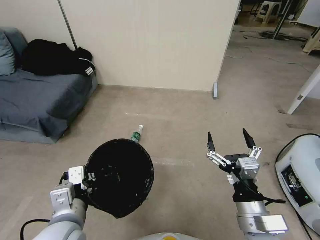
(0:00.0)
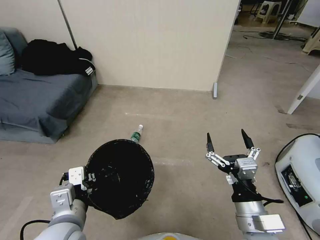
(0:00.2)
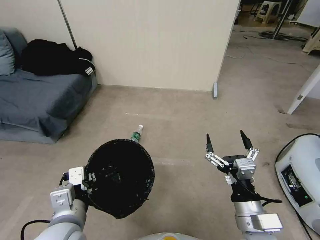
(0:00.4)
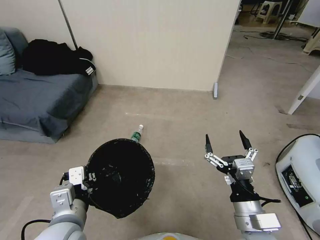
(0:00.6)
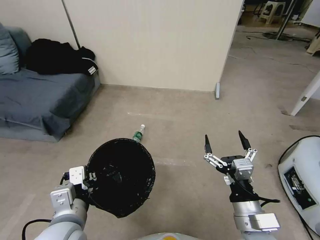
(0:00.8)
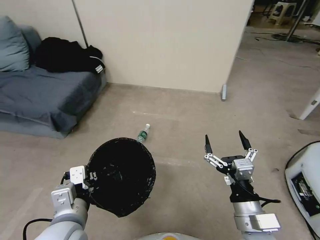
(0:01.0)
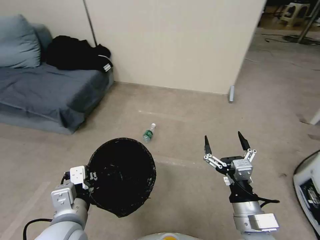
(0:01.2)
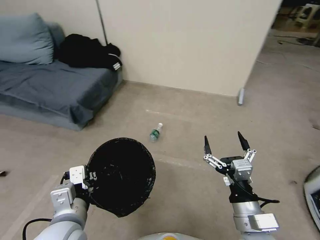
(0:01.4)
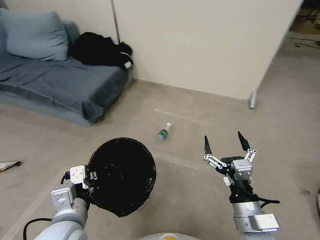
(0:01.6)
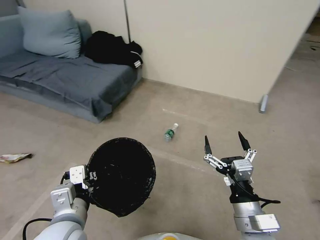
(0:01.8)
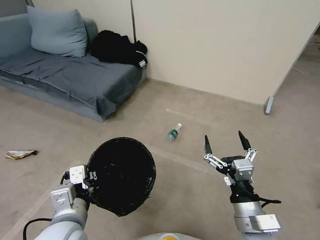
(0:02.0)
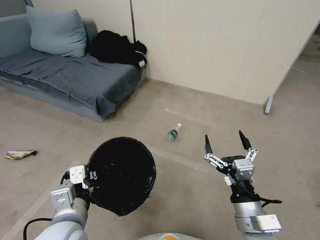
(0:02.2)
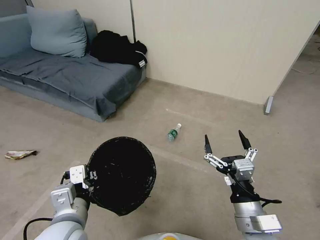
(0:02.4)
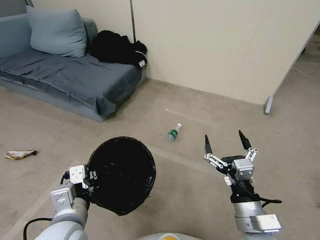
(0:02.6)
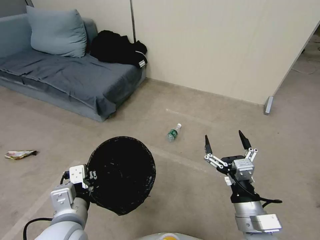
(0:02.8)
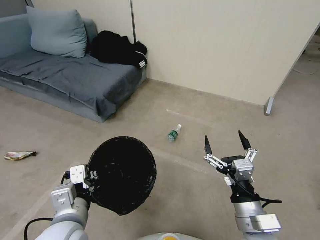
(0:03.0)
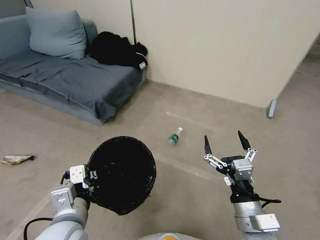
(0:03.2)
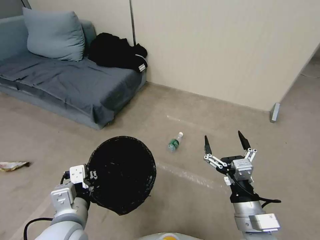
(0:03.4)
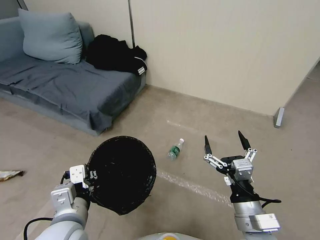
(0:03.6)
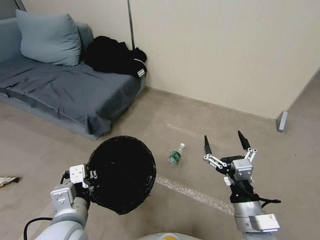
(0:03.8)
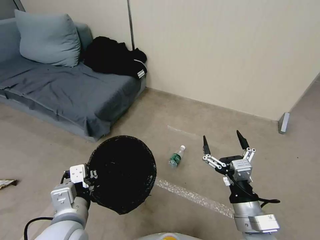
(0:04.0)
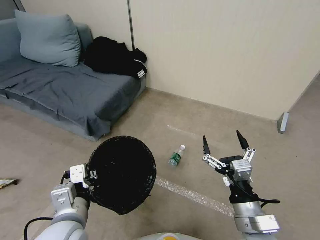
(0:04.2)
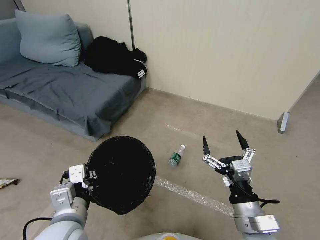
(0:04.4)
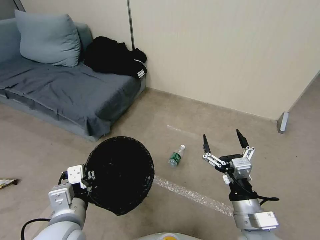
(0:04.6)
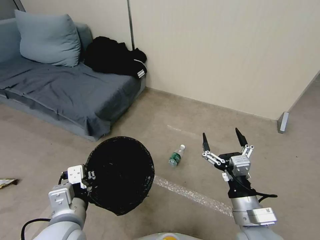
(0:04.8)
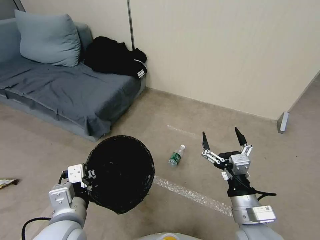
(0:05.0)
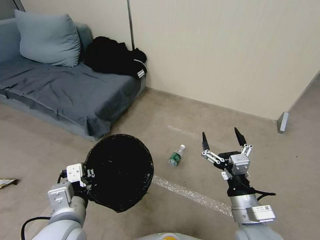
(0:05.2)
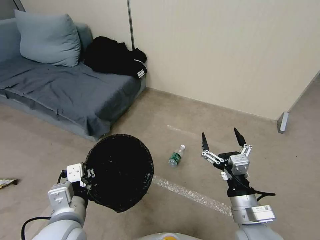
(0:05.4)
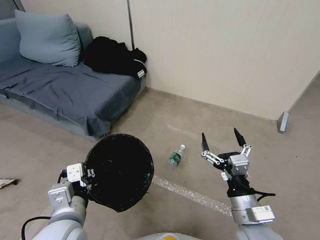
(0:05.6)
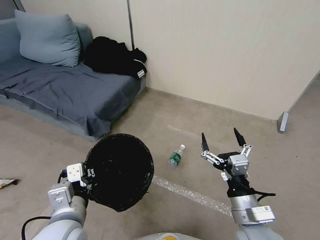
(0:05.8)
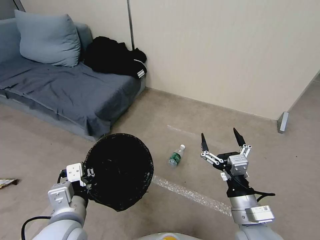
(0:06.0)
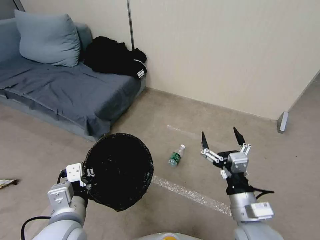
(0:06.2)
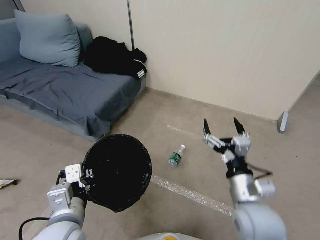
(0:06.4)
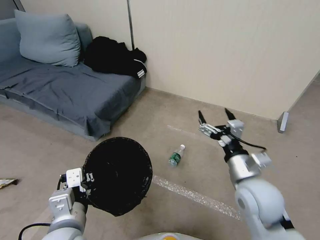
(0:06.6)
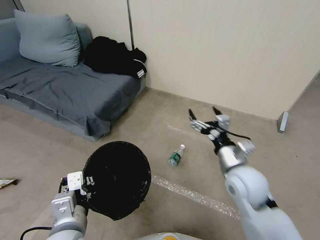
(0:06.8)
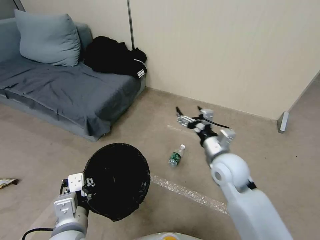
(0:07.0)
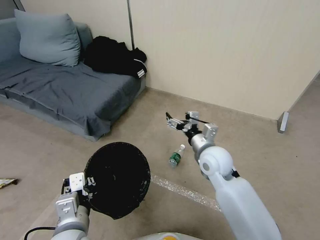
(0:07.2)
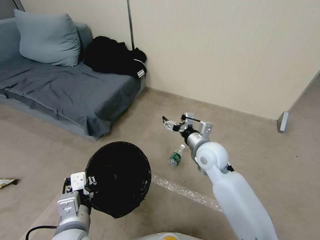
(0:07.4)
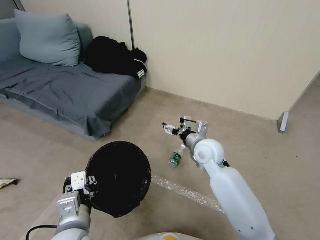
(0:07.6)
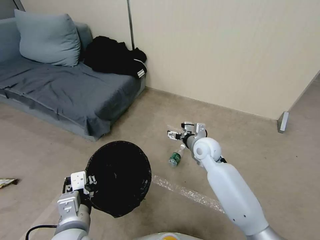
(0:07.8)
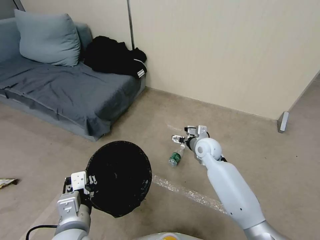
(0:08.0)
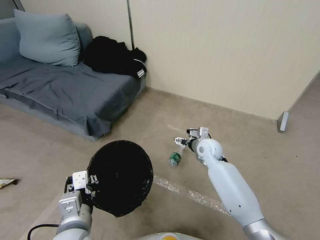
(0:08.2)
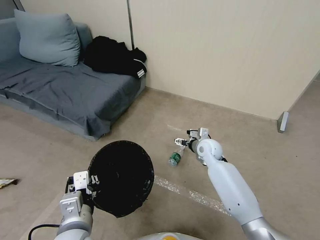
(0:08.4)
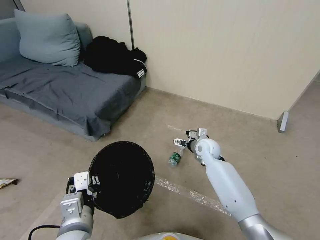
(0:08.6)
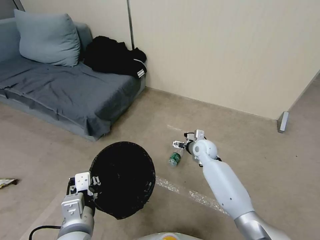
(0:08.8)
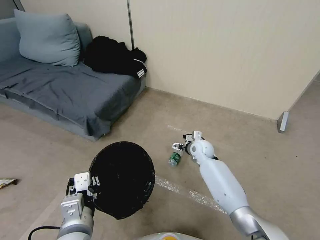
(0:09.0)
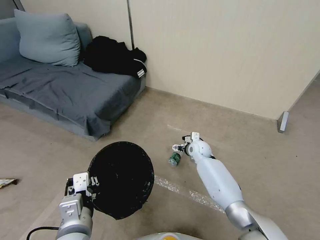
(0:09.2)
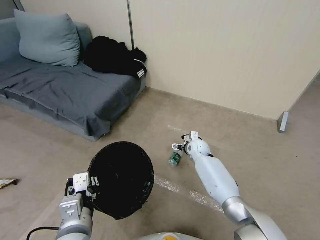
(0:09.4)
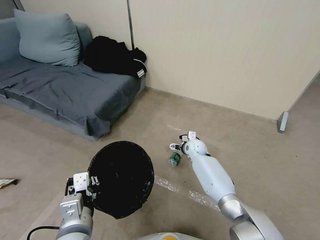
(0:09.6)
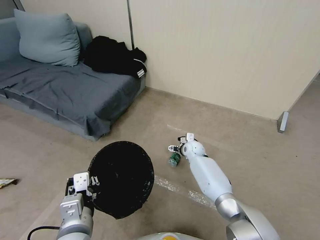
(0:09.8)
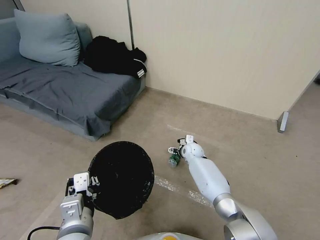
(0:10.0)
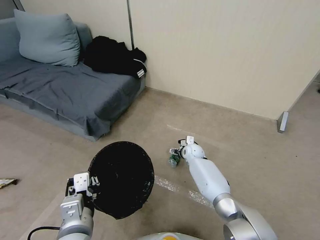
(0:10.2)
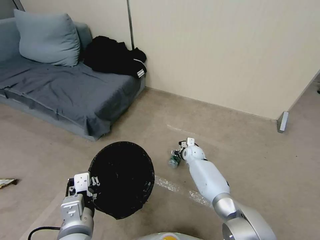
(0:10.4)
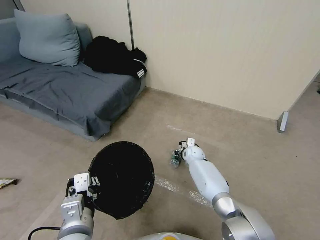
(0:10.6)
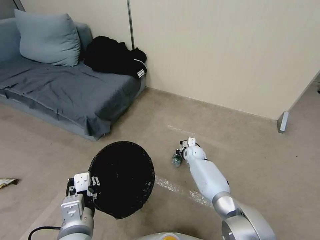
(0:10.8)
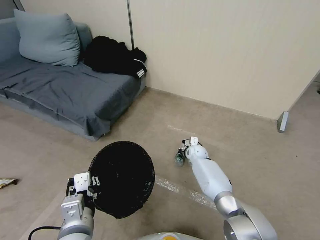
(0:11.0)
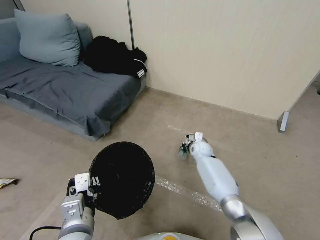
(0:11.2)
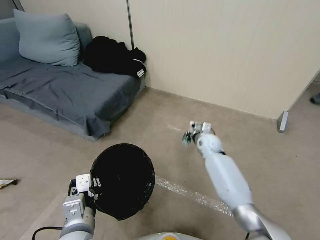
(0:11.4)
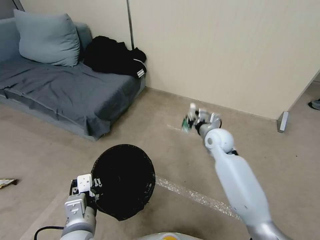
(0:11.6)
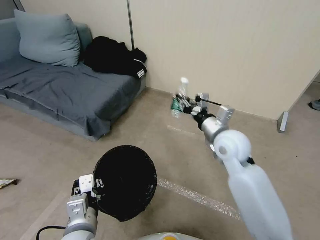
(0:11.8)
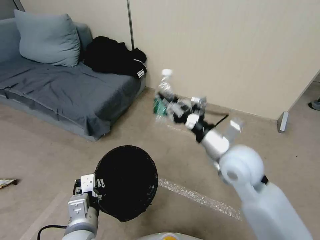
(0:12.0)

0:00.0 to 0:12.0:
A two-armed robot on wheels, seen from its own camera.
Task of the whole recording: Pick up the trash bin, then pick up the garbage from the floor and place it into the trash bin.
0:01.6 to 0:04.4: Both grippers stay about where they are.
0:04.4 to 0:06.0: The grippers stay close to where they were, moving slightly.
0:06.0 to 0:07.6: The right gripper shifts about 25 cm forward.
0:07.6 to 0:09.0: The right gripper travels downward and forward by about 15 cm.
0:09.0 to 0:10.4: The right gripper is displaced downward by roughly 10 cm.
0:10.4 to 0:12.0: The right gripper moves upward and backward, some 35 cm, and closes.

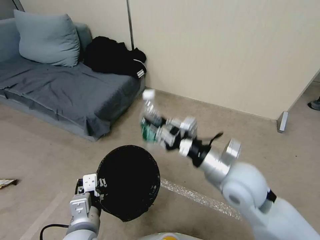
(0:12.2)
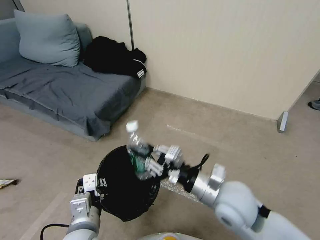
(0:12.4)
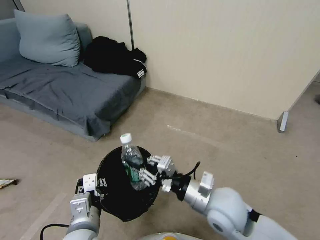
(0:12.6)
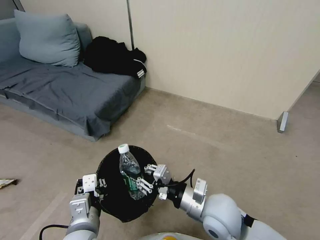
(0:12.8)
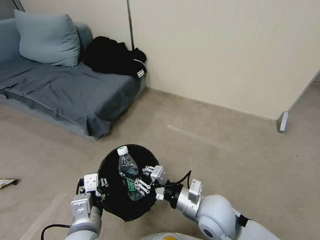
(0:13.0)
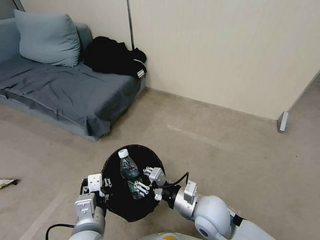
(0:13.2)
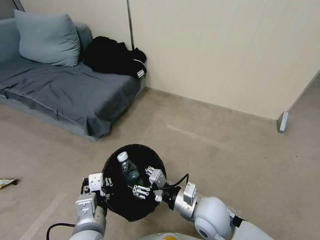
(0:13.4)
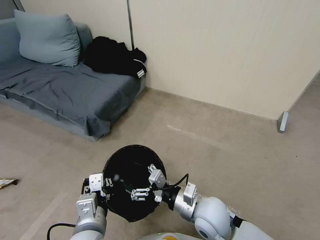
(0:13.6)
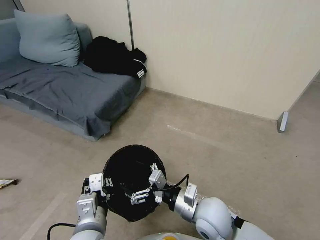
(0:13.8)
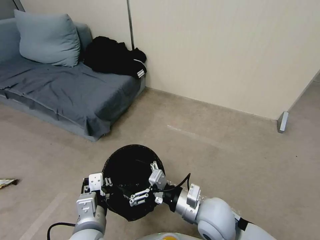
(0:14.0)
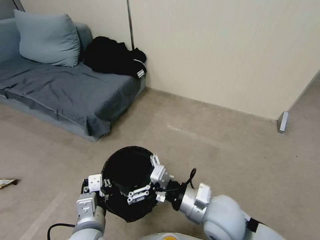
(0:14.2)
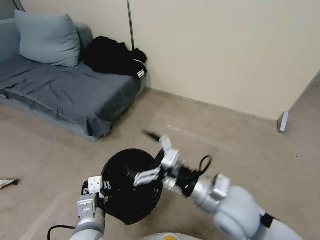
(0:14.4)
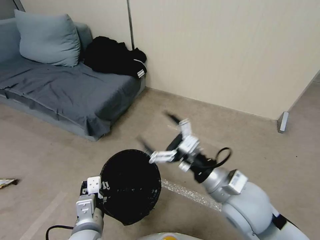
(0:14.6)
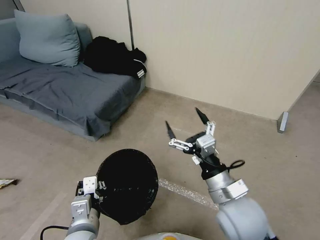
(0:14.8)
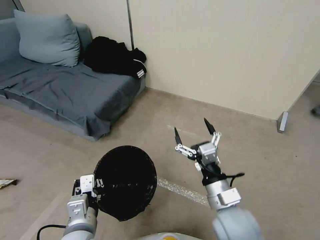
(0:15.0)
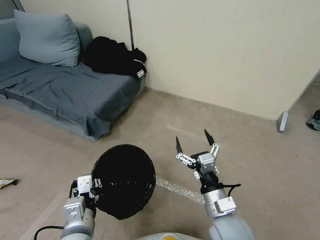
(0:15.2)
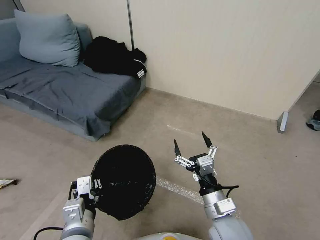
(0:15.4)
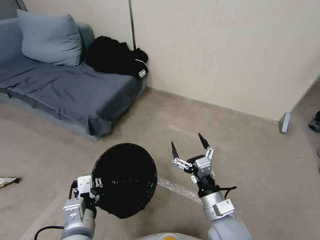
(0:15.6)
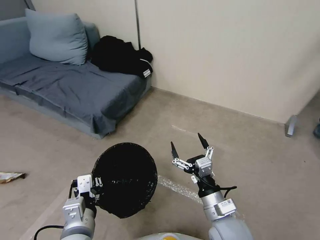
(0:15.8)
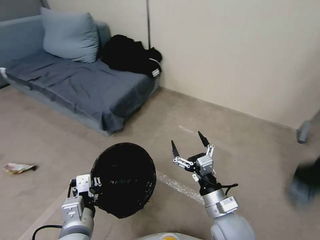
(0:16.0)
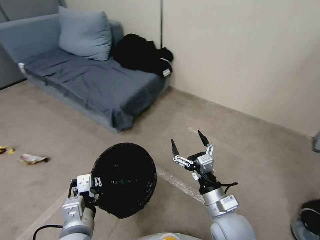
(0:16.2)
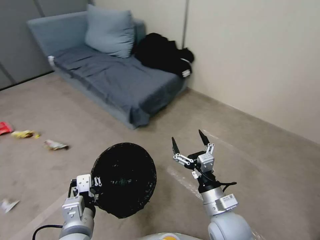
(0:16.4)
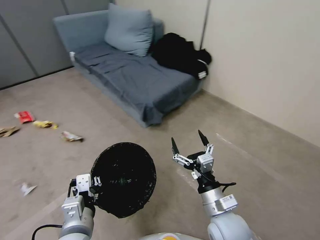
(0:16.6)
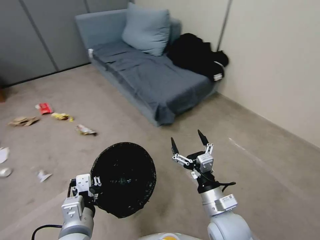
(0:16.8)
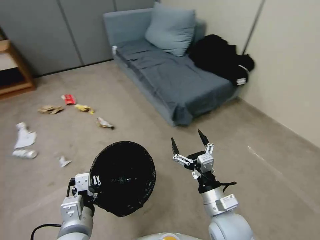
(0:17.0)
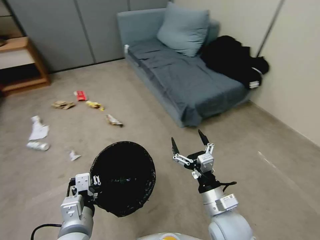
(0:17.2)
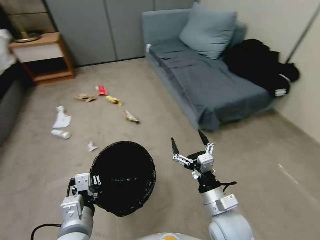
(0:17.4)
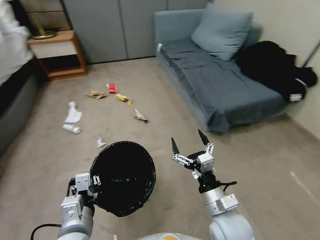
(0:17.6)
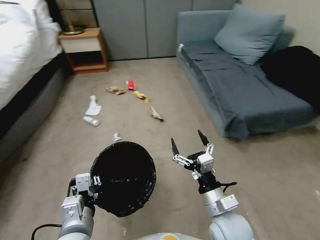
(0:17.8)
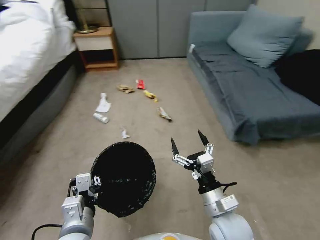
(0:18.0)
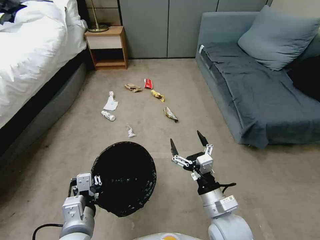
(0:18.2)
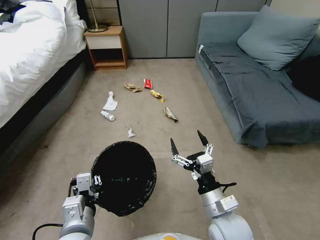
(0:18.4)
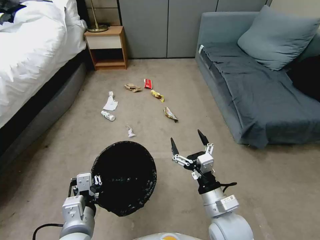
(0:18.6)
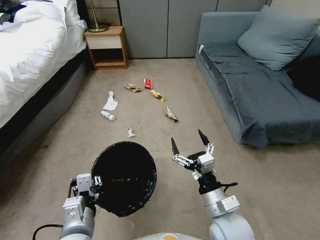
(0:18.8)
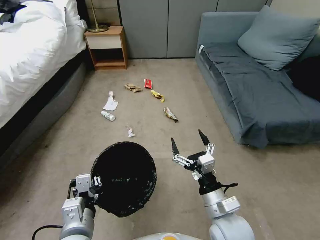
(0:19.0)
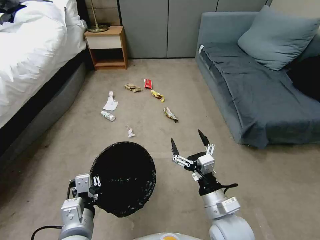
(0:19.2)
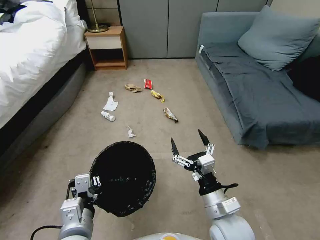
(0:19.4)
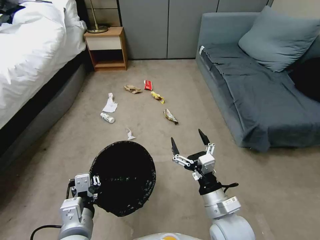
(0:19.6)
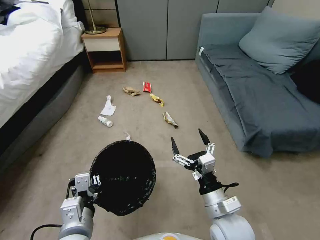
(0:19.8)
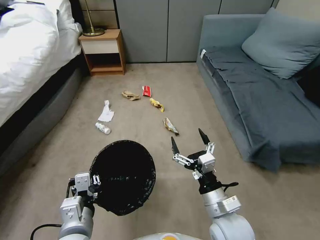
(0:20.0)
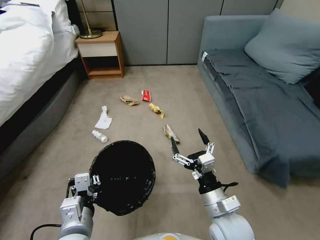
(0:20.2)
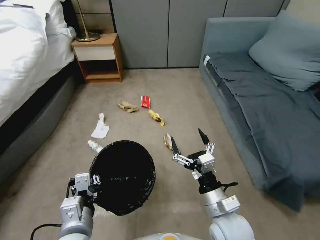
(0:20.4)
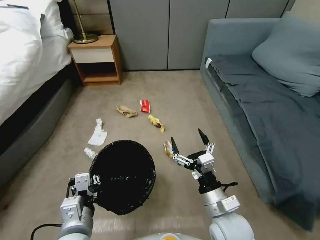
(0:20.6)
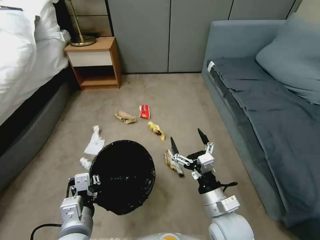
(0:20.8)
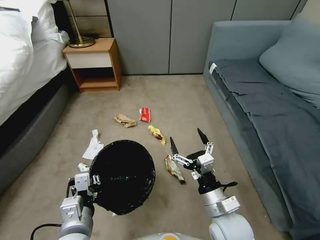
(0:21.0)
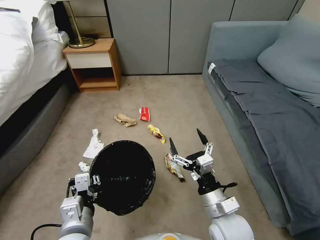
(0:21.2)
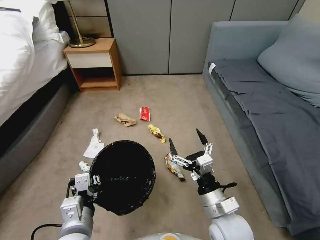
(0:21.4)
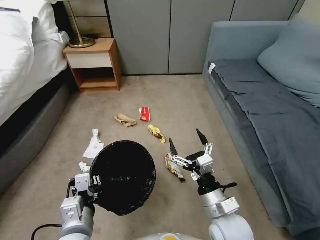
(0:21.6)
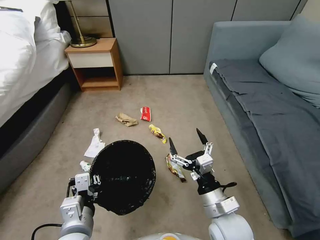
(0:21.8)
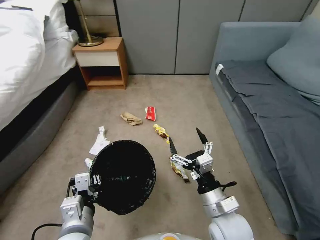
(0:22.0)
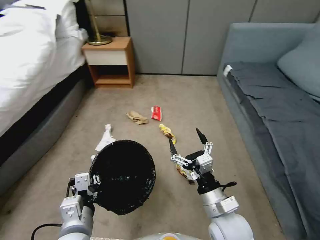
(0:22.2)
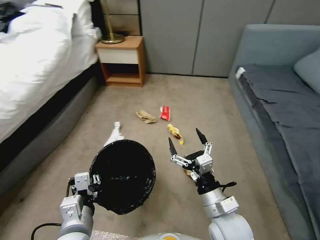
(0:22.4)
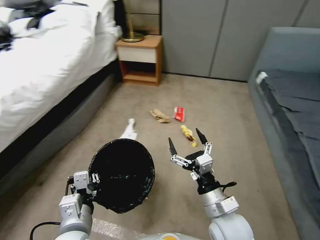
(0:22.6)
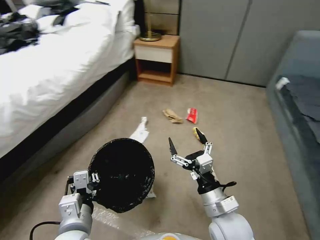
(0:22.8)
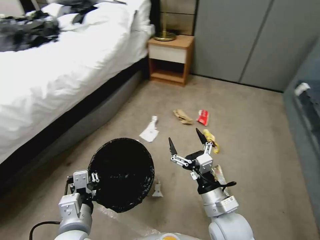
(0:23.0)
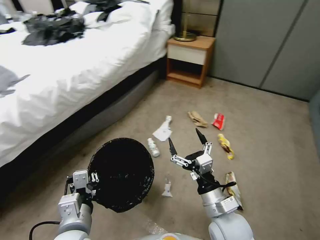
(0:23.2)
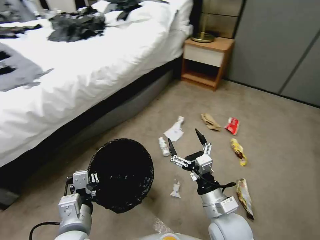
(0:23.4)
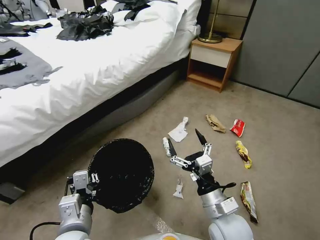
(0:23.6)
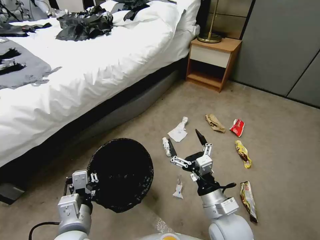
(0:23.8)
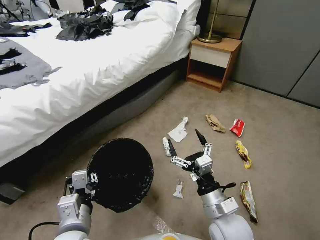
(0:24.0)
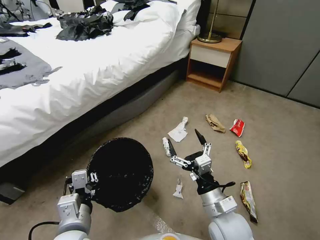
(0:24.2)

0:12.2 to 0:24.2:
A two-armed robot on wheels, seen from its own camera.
Task of the whole recording: Pick up the trash bin, then pick up the garbage from the floor and place it into the trash bin.
0:12.2 to 0:13.8: The right gripper heads downward and to the left, covering roughly 15 cm, and opens its fingers.
0:13.8 to 0:15.2: The right gripper moves about 10 cm upward and comes back.
0:18.2 to 0:19.8: Both grippers stay put.
